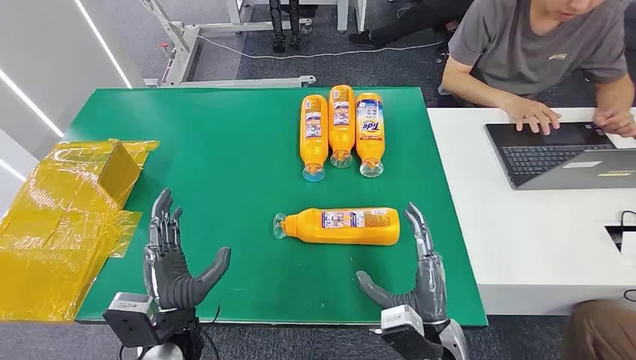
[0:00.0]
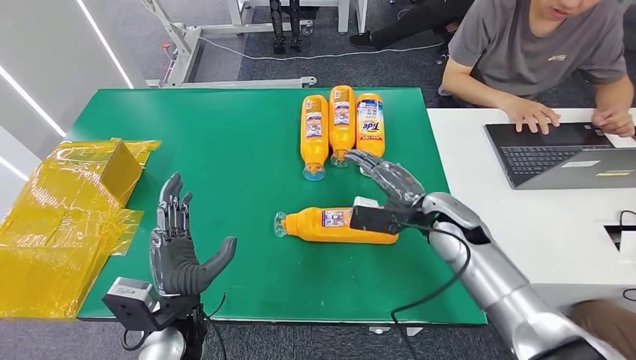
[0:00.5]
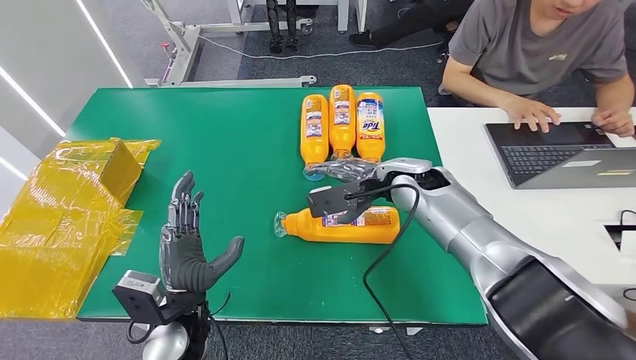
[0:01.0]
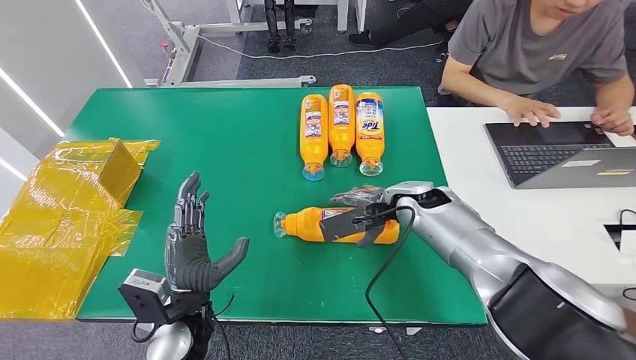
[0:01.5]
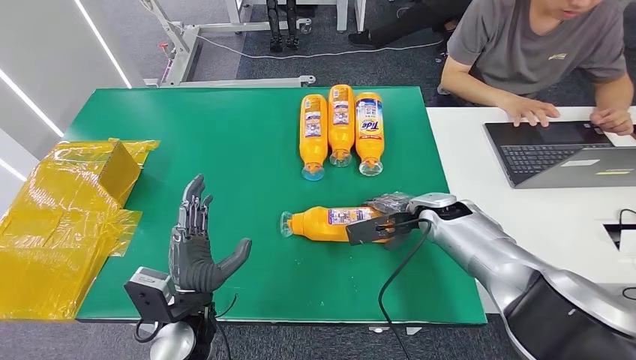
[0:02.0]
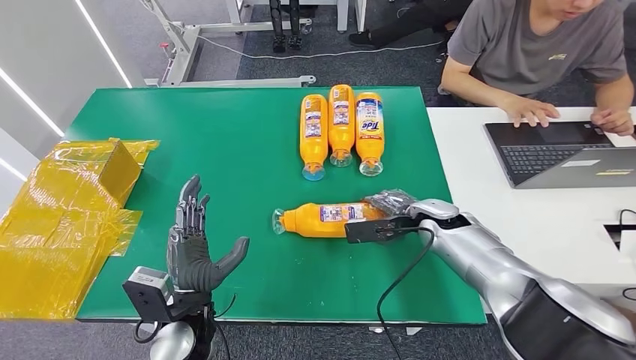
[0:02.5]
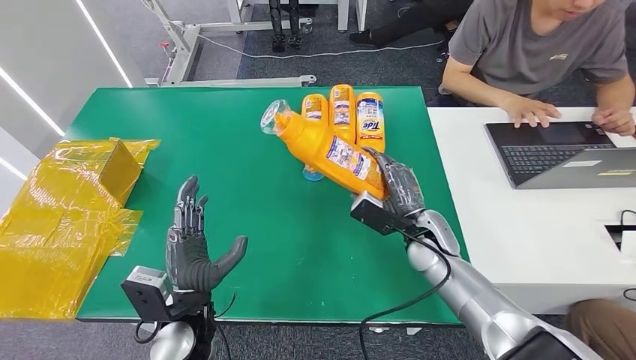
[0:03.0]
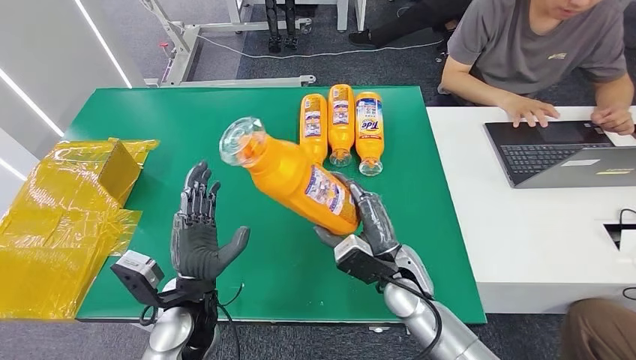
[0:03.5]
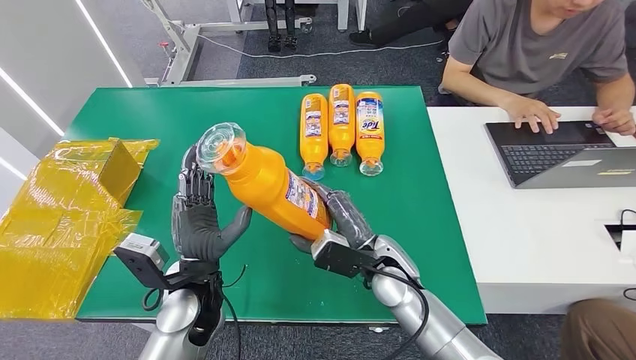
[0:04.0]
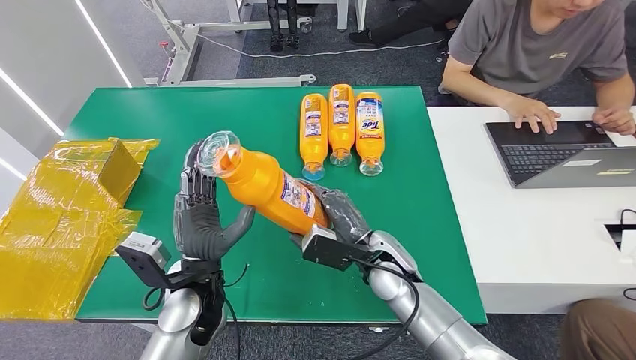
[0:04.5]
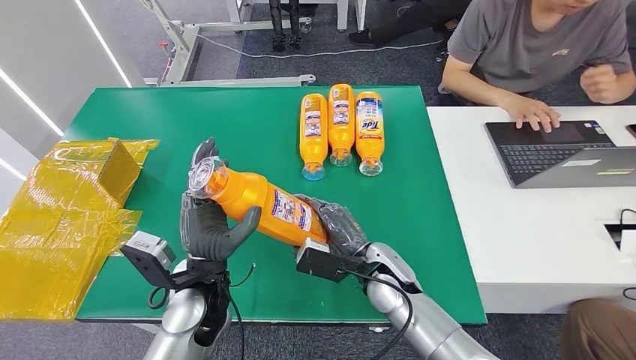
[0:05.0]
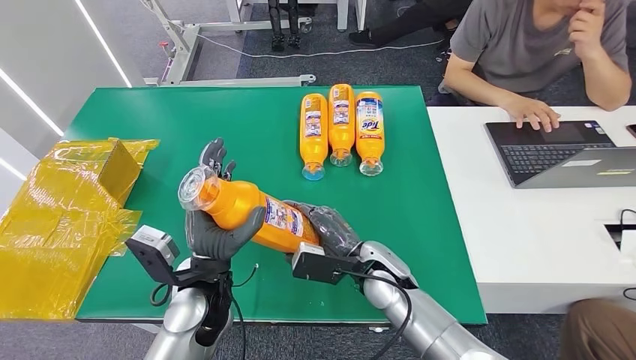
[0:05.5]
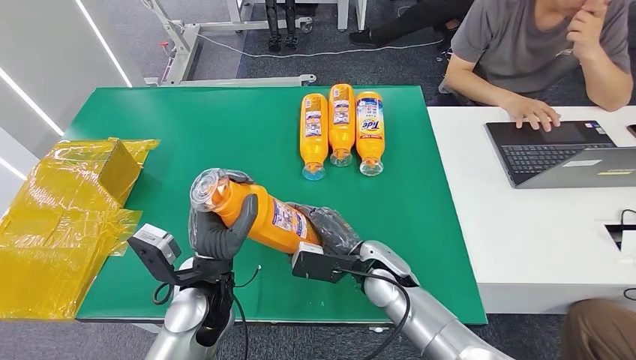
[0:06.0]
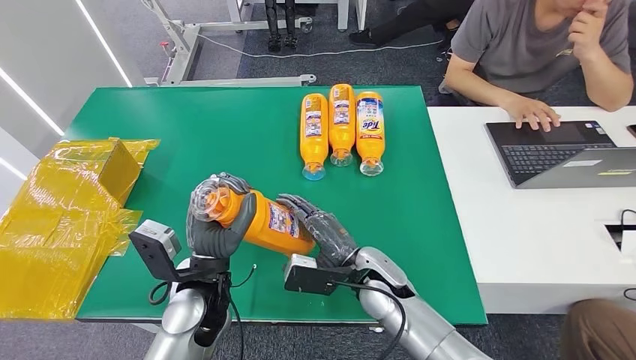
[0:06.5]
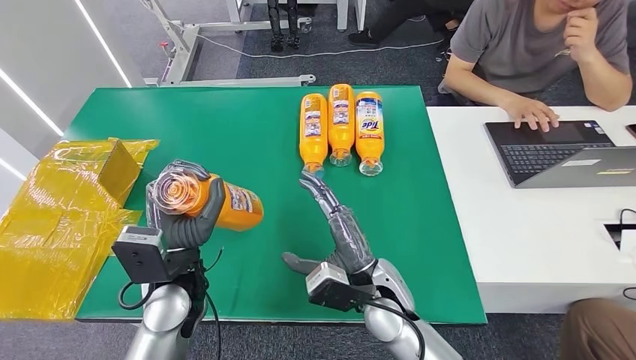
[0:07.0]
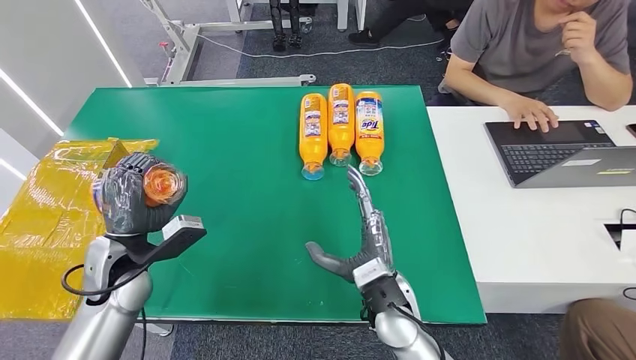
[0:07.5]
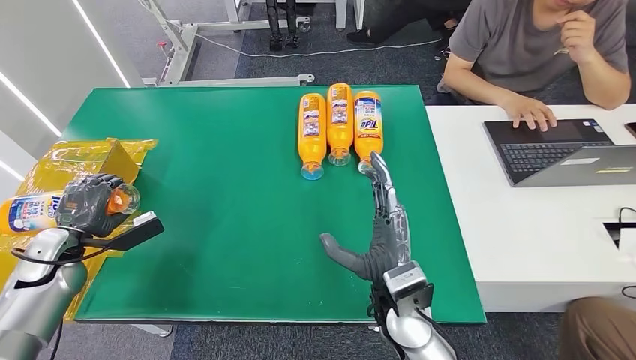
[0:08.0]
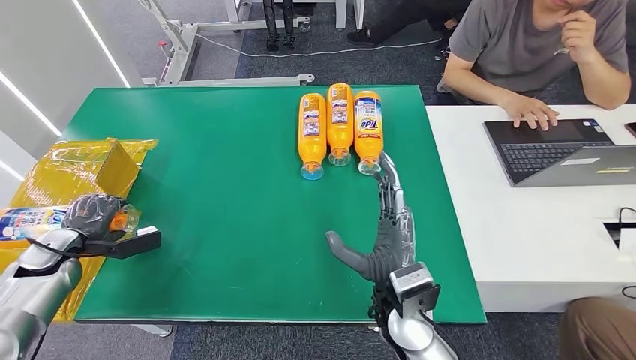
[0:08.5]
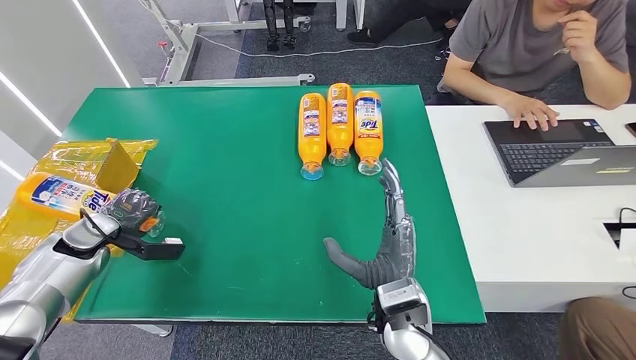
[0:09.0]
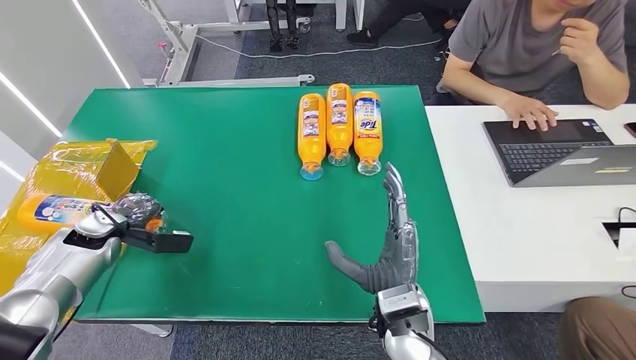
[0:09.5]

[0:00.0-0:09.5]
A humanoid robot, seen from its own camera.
Step, 0:00.0 to 0:04.0: Pick up the bottle from the table.
0:02.0 to 0:04.0: The left hand moves roughly 5 cm, while the right hand moves to the left and backward, about 15 cm.
0:04.0 to 0:05.5: The hands stay close to where they were, moving slightly.
0:05.5 to 0:07.5: The left hand is displaced to the left by approximately 15 cm, while the right hand goes some 5 cm backward.
0:07.5 to 0:09.5: The left hand goes roughly 15 cm to the left, forward and downward.

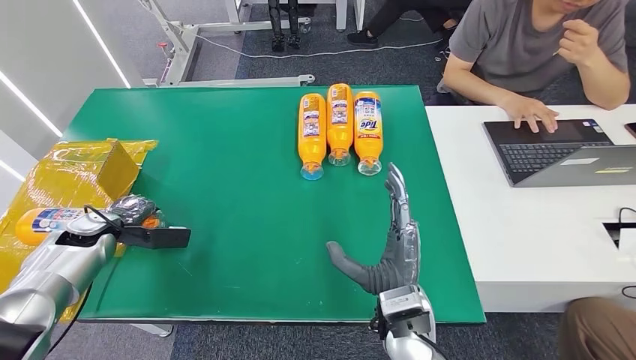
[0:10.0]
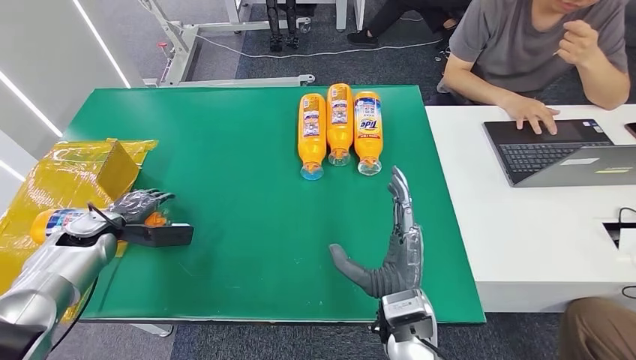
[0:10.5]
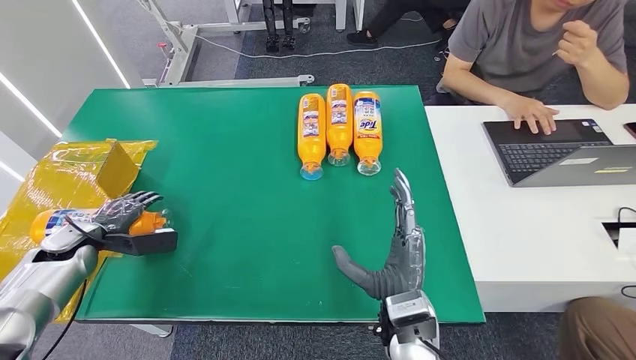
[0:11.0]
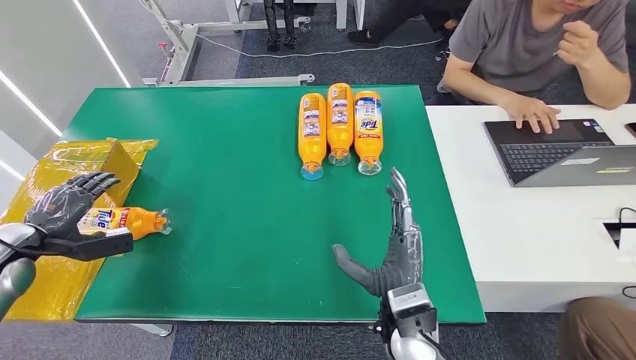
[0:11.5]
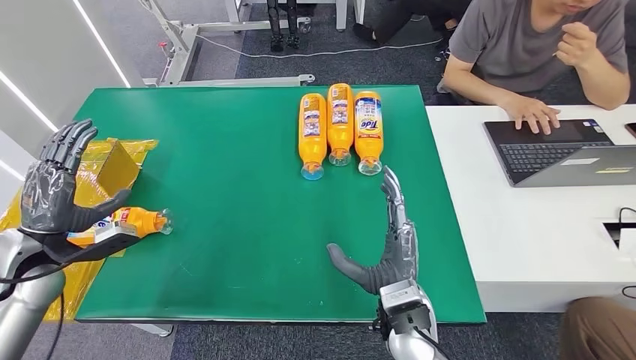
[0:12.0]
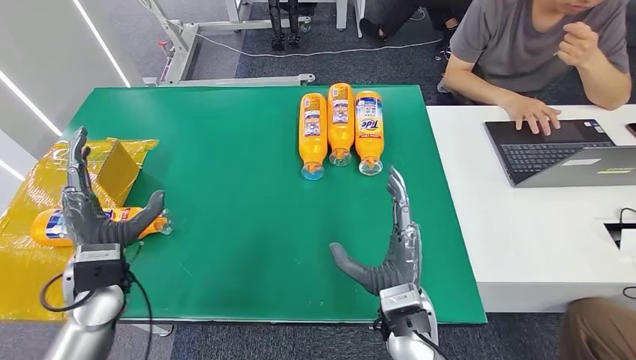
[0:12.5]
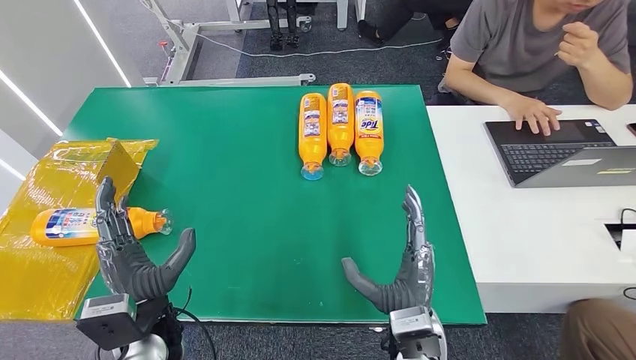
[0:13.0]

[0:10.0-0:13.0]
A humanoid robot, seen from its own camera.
Step, 0:10.0 to 0:13.0: Turn the bottle to the front side.
0:10.0 to 0:11.5: The left hand shifts some 10 cm to the left and backward.
0:11.5 to 0:13.0: The left hand moves to the right, some 30 cm.
